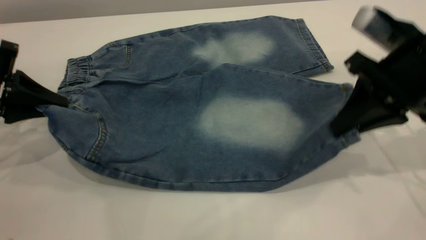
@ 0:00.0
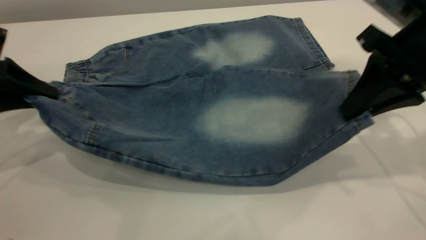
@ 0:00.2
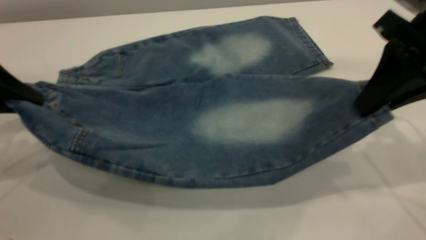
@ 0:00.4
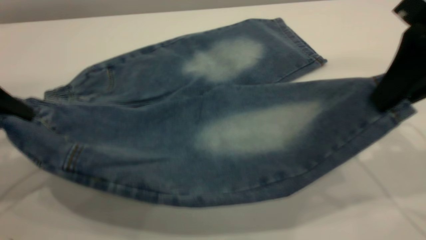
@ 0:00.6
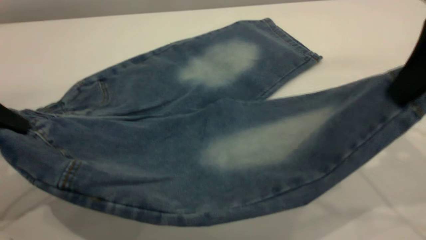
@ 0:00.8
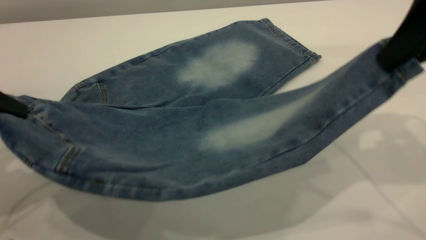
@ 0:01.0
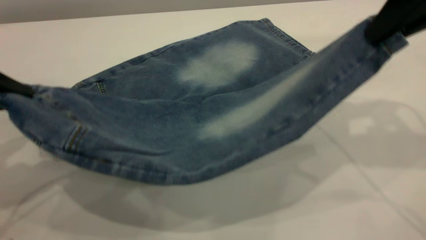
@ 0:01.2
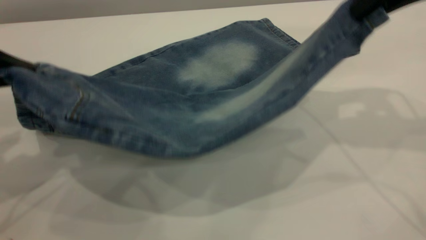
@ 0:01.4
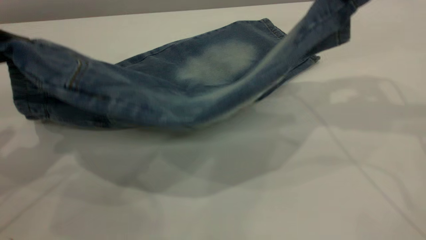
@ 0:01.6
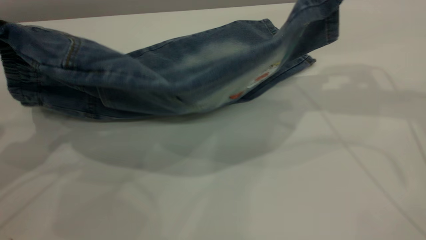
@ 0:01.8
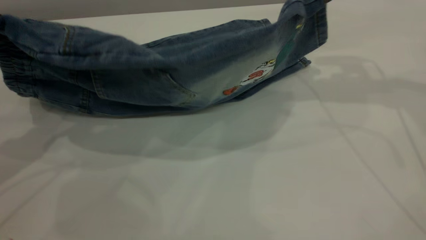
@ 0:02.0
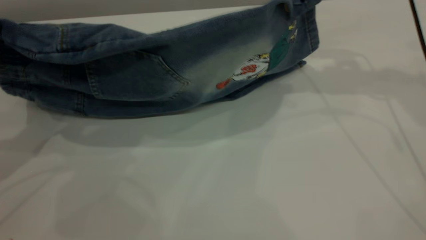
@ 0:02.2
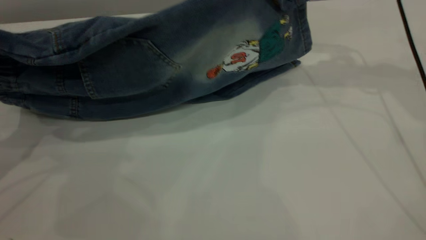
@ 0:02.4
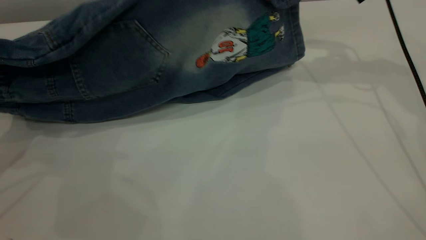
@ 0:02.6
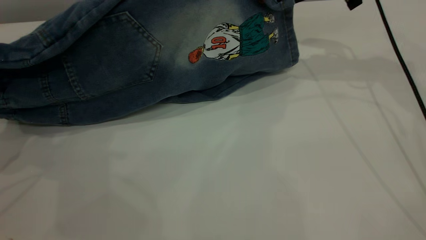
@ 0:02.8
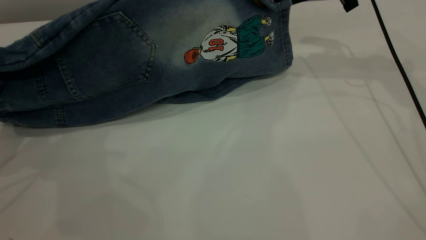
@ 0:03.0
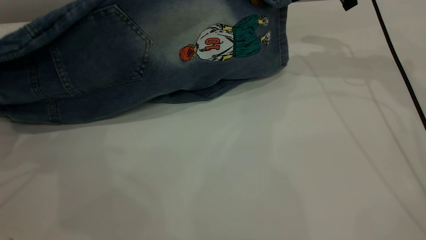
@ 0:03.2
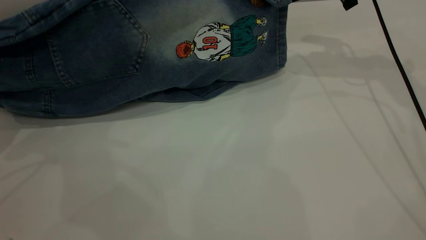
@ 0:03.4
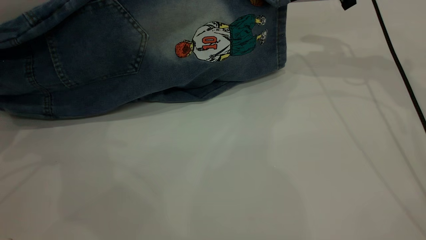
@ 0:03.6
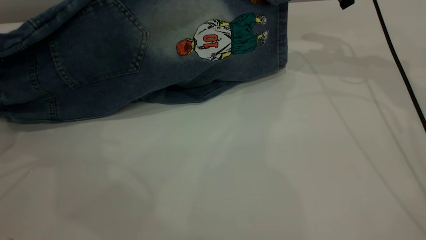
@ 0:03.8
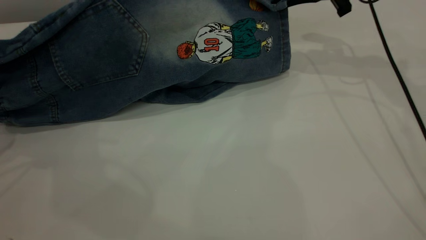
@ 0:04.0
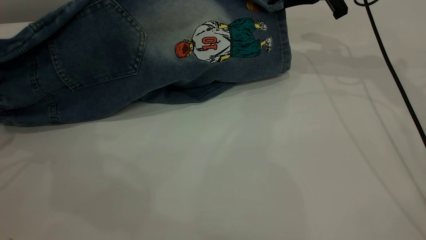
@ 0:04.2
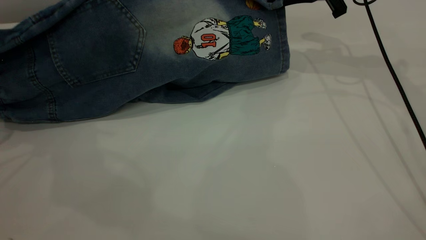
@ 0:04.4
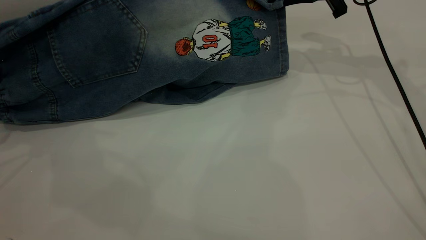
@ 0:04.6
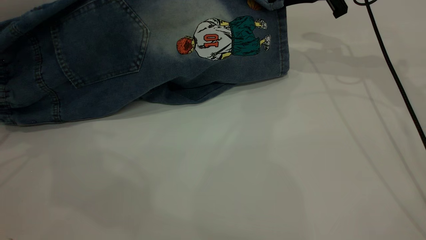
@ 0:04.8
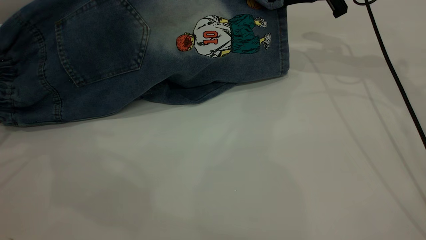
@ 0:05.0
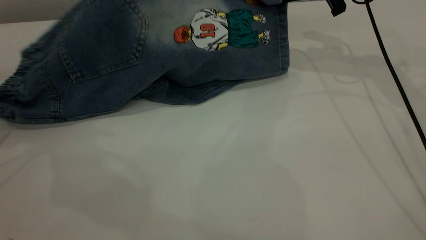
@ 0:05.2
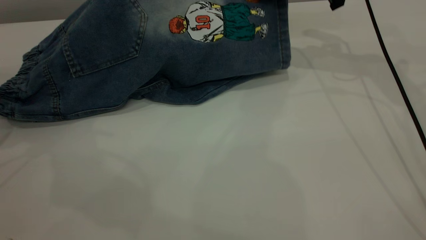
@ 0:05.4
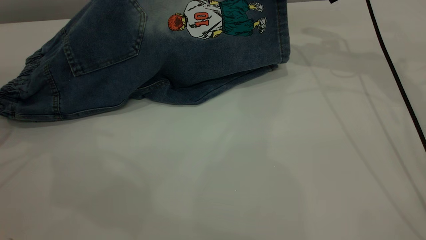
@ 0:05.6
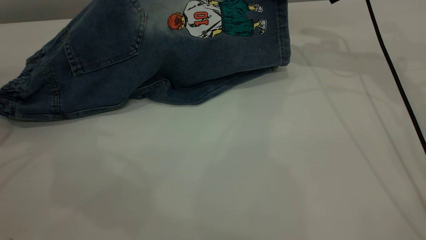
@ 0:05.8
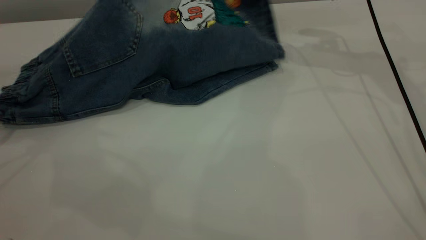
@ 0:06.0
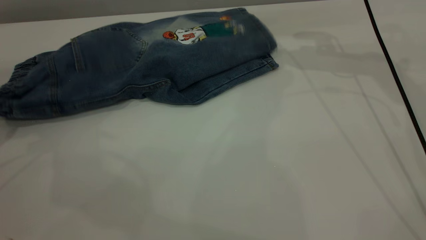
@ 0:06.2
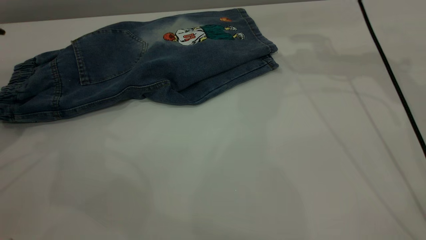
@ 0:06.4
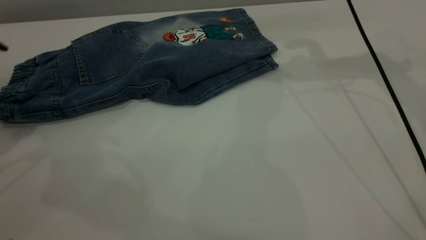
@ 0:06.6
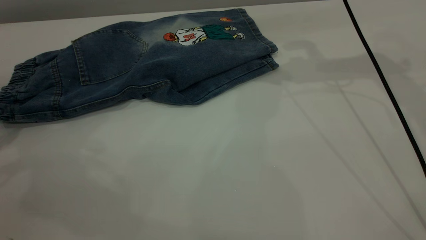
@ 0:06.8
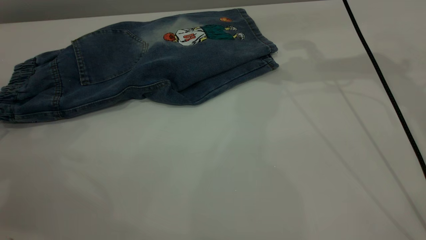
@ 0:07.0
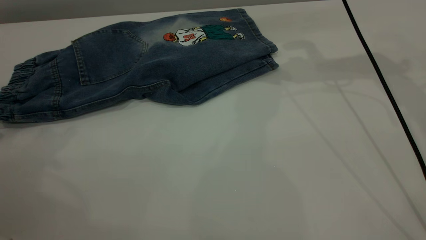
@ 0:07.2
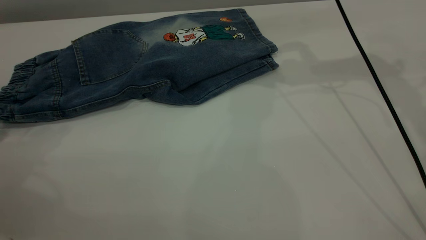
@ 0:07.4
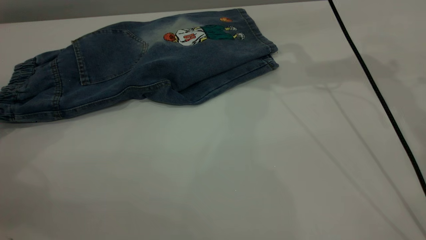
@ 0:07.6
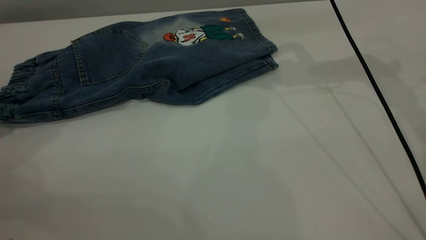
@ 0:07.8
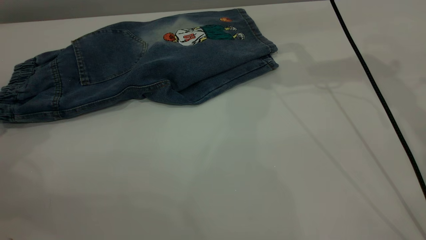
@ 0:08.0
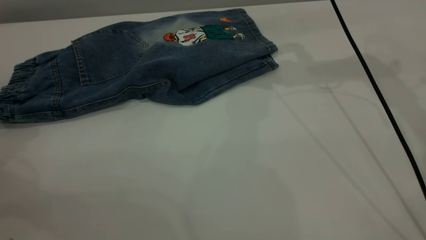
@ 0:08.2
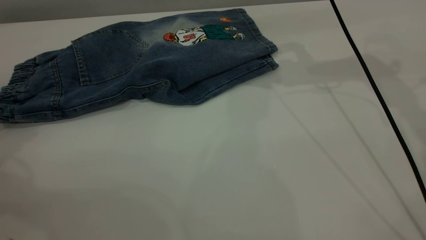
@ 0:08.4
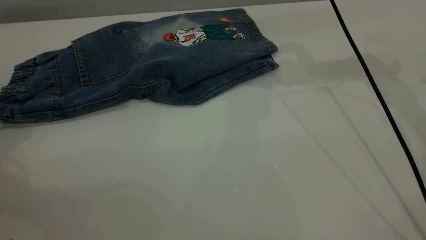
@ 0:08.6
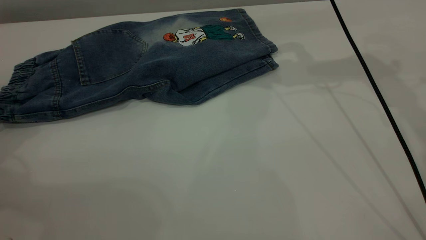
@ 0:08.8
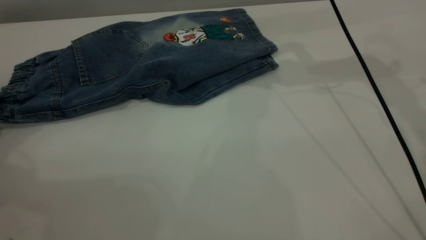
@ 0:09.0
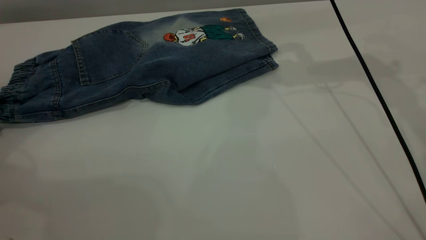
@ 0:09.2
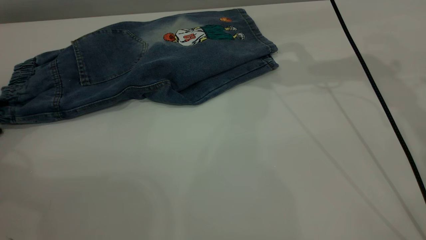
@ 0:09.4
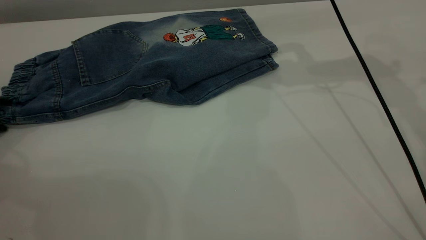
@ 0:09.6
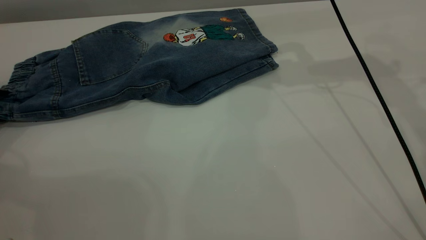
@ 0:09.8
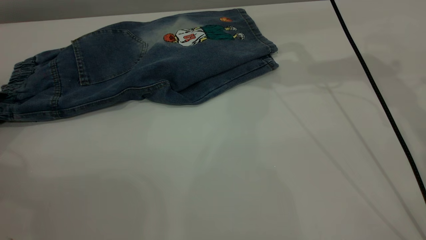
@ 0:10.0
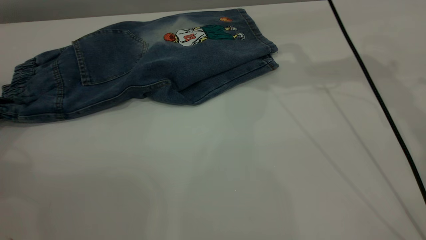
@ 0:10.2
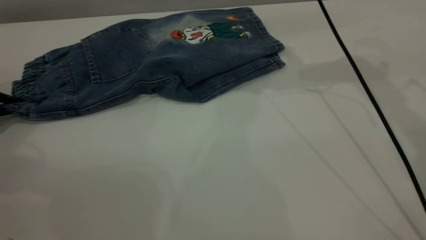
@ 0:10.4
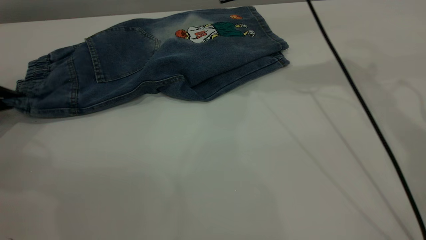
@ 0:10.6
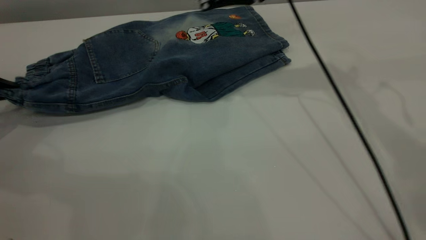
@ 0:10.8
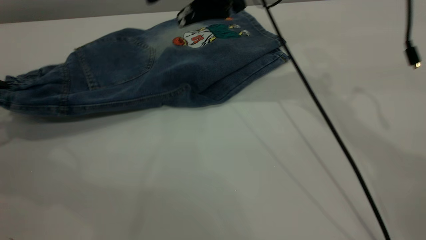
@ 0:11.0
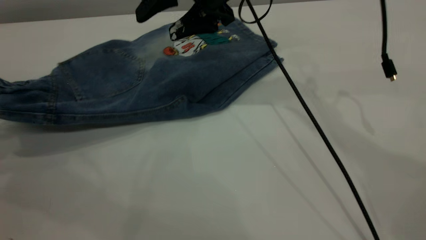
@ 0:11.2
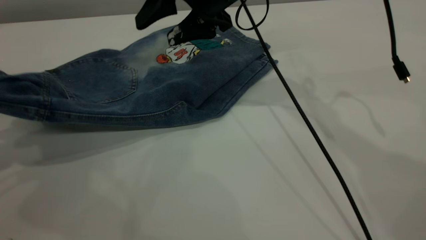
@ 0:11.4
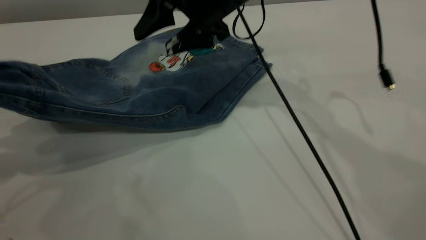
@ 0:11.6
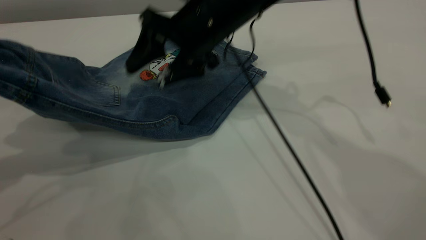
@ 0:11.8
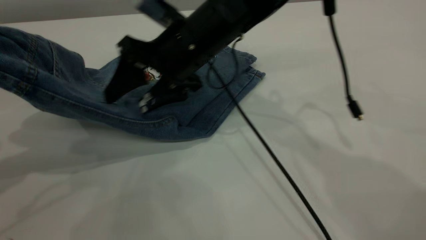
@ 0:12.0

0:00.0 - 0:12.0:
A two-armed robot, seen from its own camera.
Step, 0:00.0 - 0:06.6: Fold the bottom of the pants upward.
0:00.0 - 0:01.6: The right gripper travels upward and forward by approximately 15 cm; the left gripper shifts approximately 10 cm upward.
0:01.6 - 0:03.0: The right gripper is displaced forward and downward by about 15 cm.
0:03.0 - 0:04.4: The grippers stay close to where they were, moving slightly.
0:04.4 - 0:06.0: The right gripper opens its fingers, while the left gripper opens its fingers.
0:06.0 - 0:07.6: The left gripper goes about 5 cm to the left. Meanwhile the right gripper shifts by some 5 cm.
0:09.0 - 0:10.4: The left gripper closes its fingers.
0:10.4 - 0:12.0: The left gripper moves upward and backward, some 25 cm. Meanwhile the right gripper heads to the left, downward and backward, covering about 20 cm.

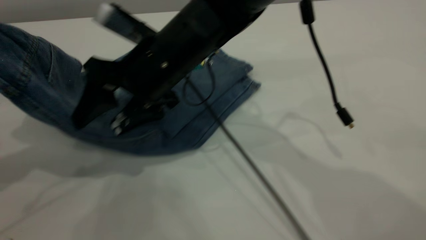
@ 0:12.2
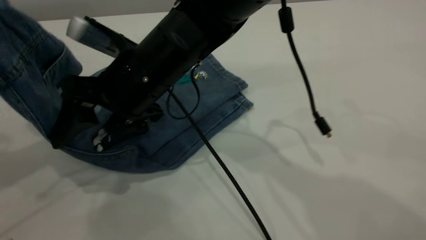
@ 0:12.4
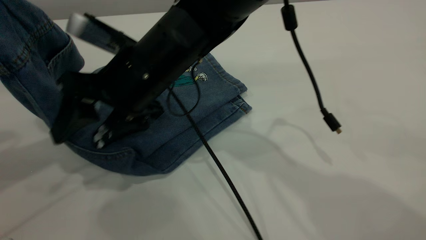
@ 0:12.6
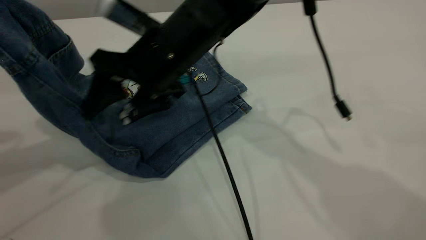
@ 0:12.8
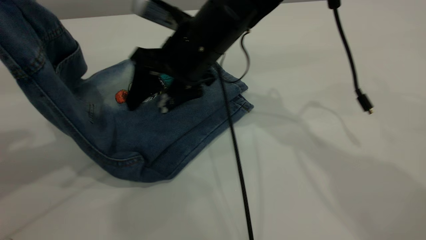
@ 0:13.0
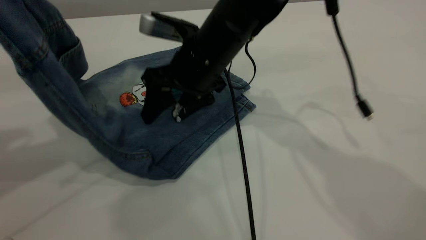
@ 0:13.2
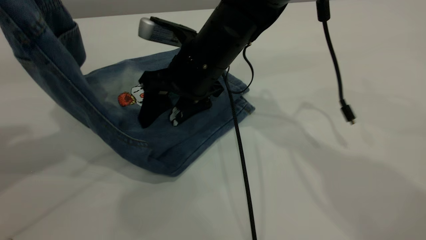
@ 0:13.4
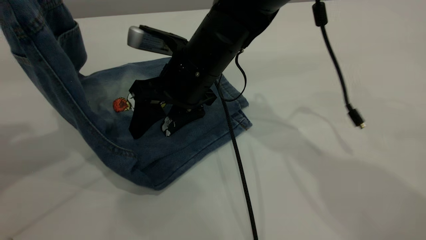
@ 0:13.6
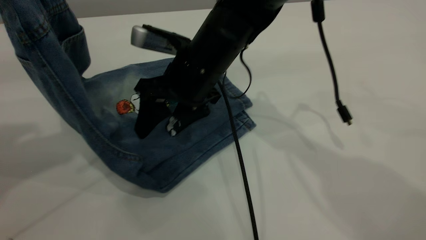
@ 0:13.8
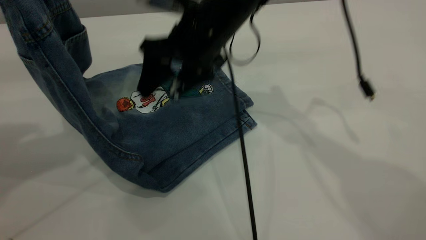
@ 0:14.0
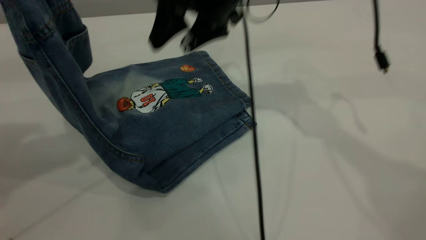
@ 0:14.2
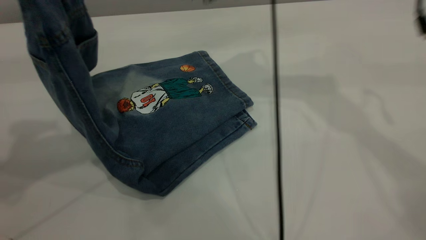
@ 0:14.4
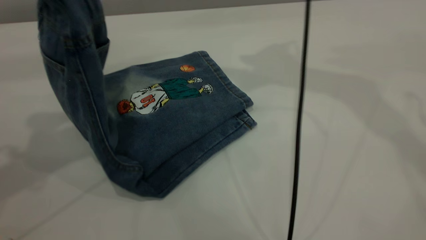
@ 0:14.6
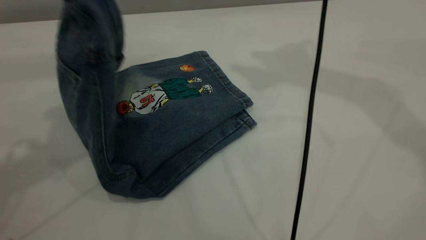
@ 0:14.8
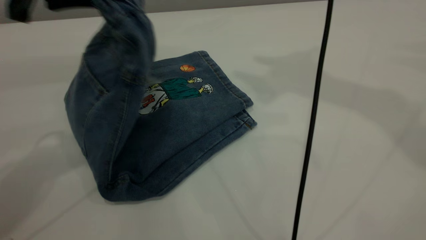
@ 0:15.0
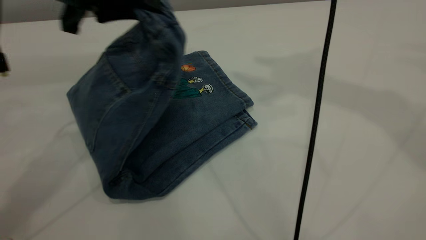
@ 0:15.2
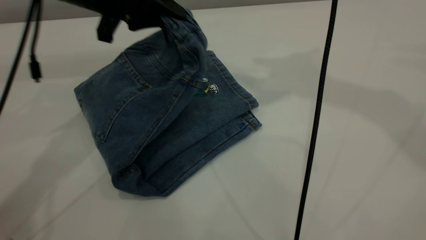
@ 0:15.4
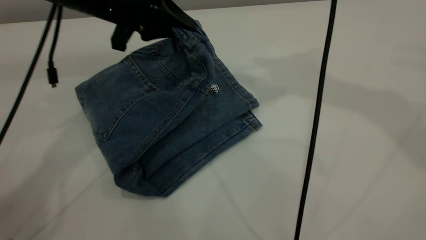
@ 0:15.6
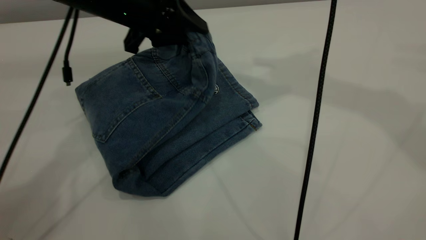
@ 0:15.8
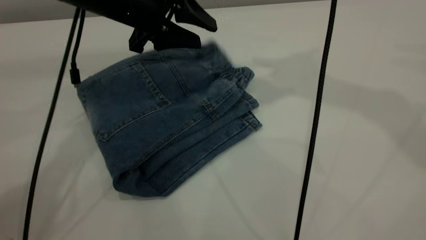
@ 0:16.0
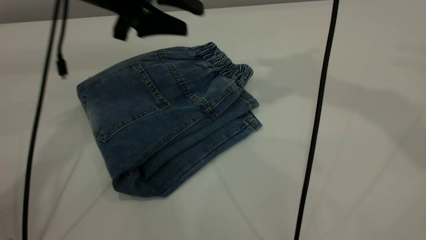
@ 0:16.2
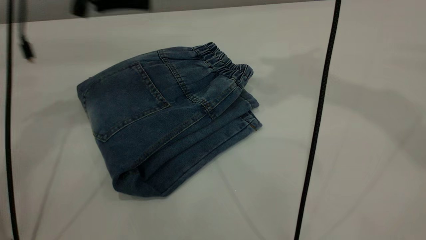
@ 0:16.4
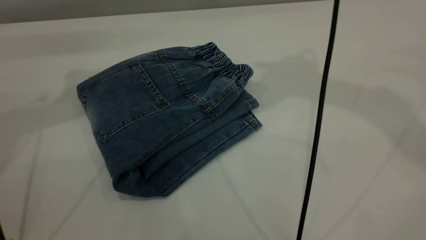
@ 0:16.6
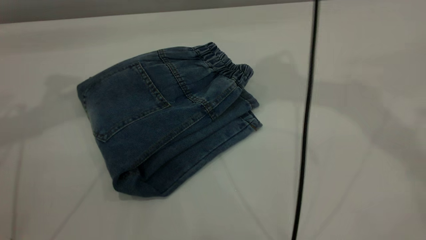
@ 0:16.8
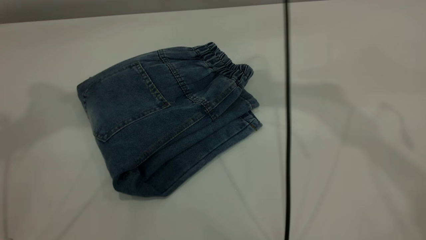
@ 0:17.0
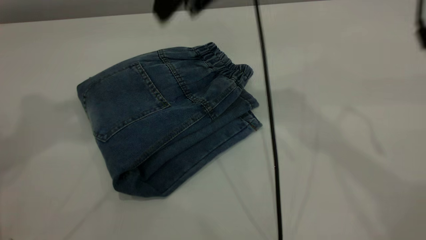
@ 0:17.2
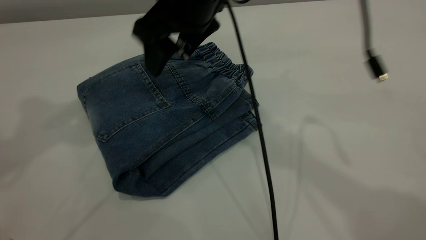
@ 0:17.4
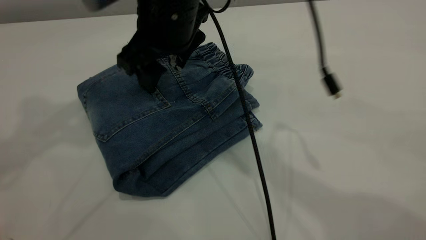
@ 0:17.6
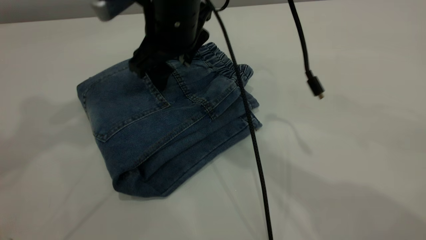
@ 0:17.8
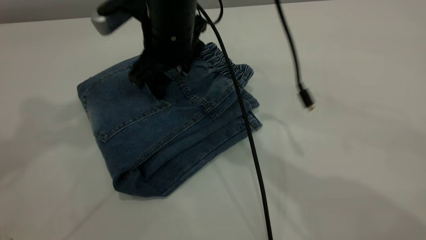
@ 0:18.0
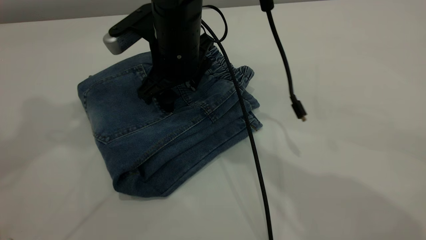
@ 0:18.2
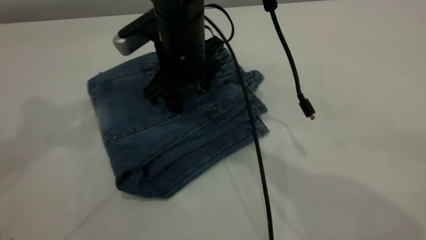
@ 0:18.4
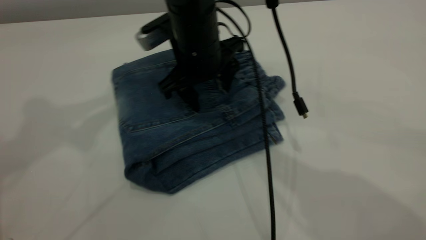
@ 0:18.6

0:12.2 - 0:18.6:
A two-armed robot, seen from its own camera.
Step, 0:12.2 - 0:16.2: Fold the pants from left to right.
0:12.2 - 0:13.8: The left gripper shifts by about 5 cm. Meanwhile the right gripper shifts about 5 cm to the right.
0:13.8 - 0:15.4: The left gripper heads to the right, downward and forward, covering about 25 cm. Meanwhile the right gripper shifts roughly 35 cm upward and to the right.
0:15.4 - 0:17.0: The left gripper moves upward and to the left, about 25 cm, and opens up; the right gripper goes about 15 cm downward and to the left.
0:17.0 - 0:18.6: The left gripper shifts by some 5 cm. Meanwhile the right gripper travels downward and to the left by roughly 20 cm.
